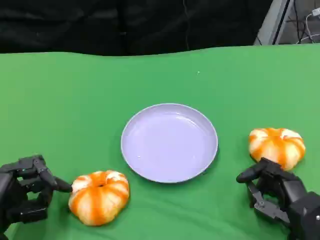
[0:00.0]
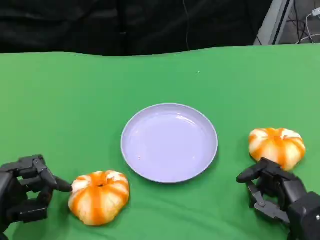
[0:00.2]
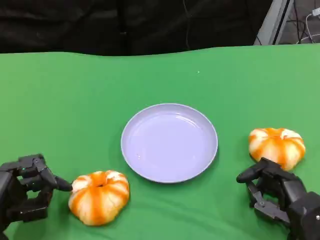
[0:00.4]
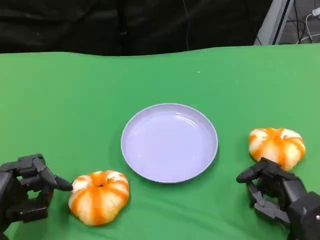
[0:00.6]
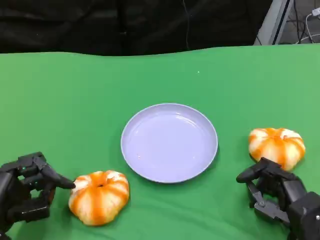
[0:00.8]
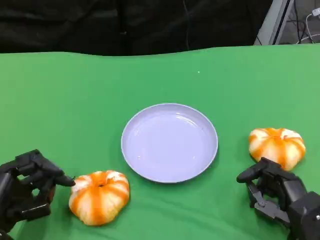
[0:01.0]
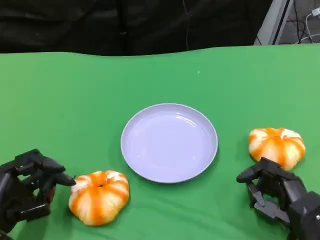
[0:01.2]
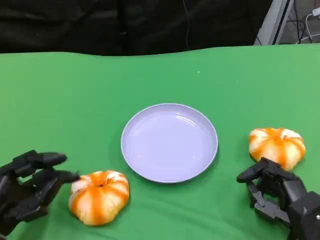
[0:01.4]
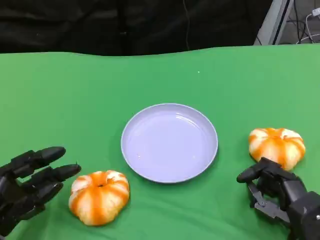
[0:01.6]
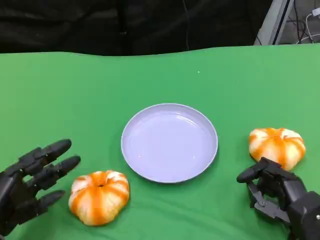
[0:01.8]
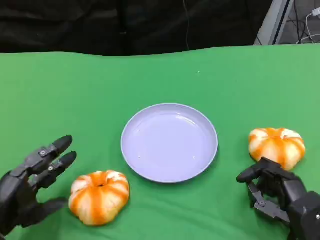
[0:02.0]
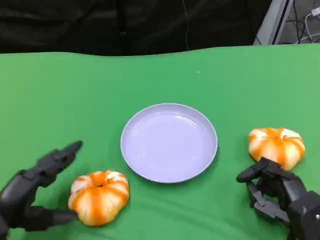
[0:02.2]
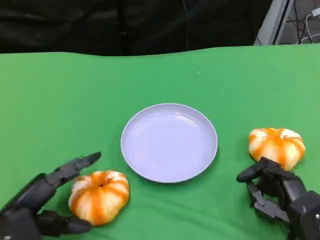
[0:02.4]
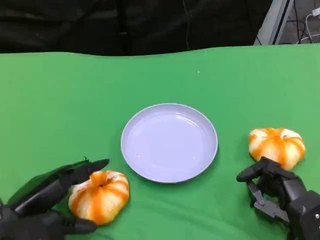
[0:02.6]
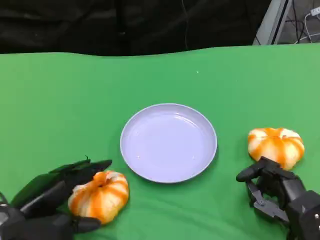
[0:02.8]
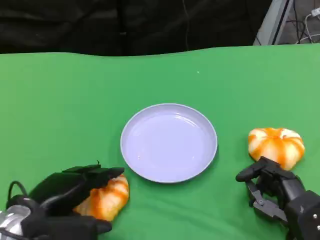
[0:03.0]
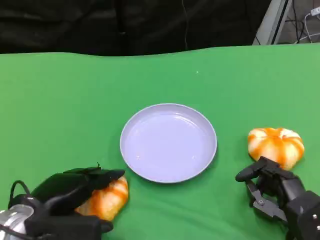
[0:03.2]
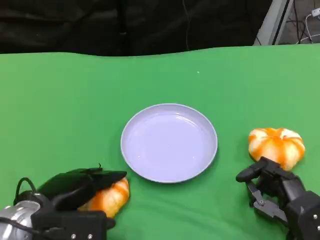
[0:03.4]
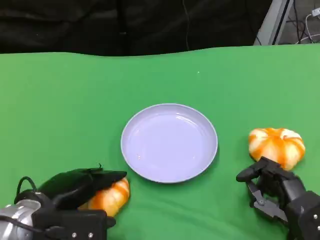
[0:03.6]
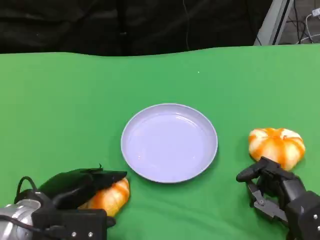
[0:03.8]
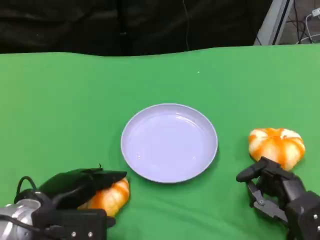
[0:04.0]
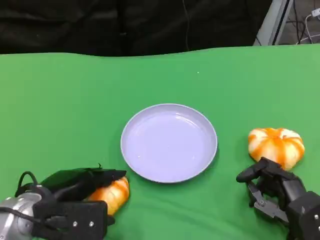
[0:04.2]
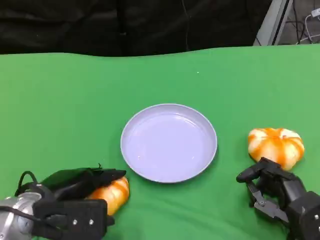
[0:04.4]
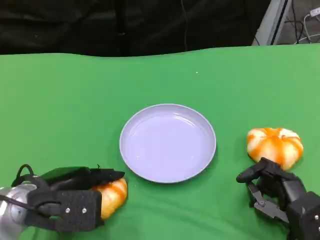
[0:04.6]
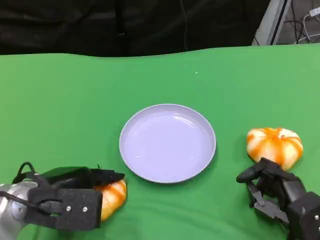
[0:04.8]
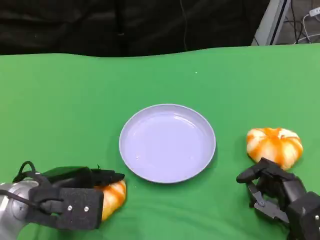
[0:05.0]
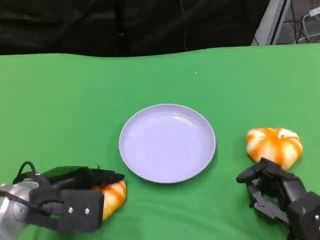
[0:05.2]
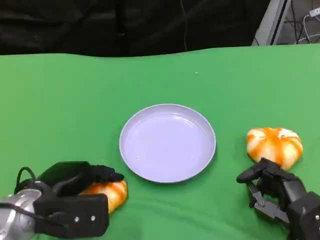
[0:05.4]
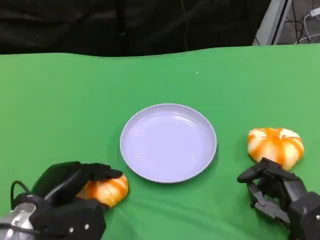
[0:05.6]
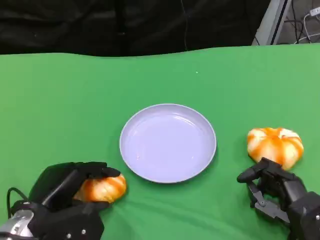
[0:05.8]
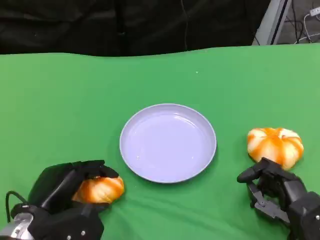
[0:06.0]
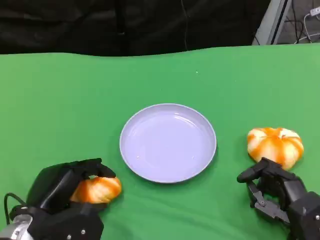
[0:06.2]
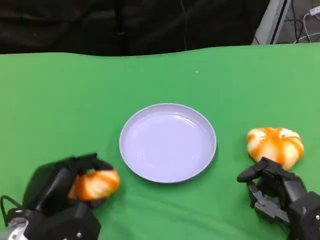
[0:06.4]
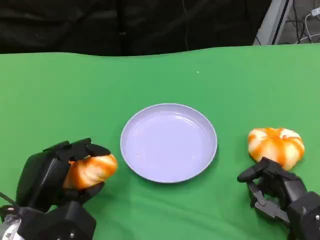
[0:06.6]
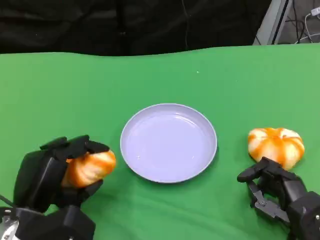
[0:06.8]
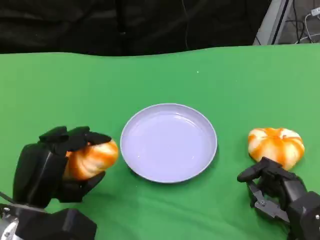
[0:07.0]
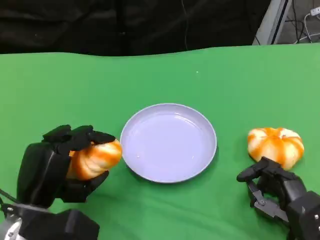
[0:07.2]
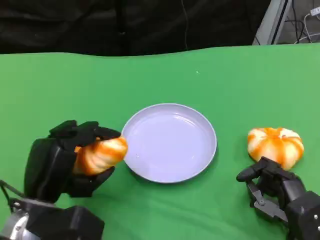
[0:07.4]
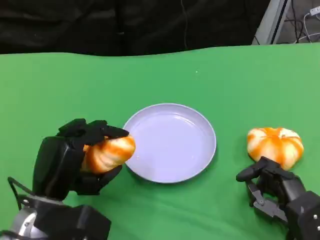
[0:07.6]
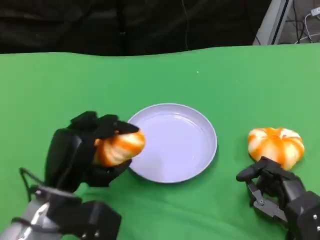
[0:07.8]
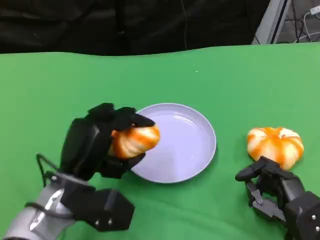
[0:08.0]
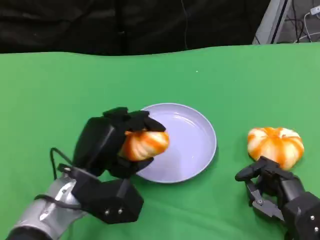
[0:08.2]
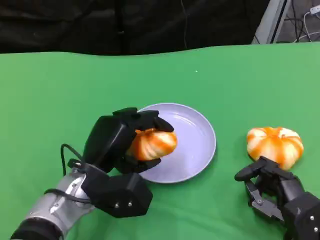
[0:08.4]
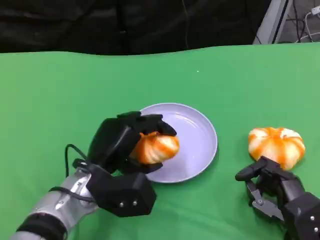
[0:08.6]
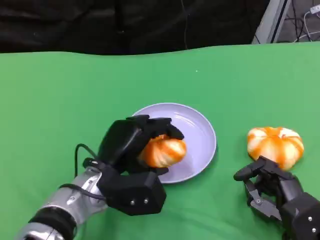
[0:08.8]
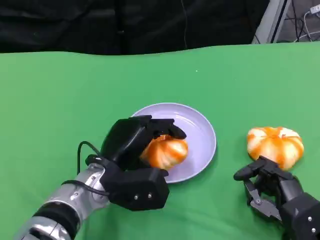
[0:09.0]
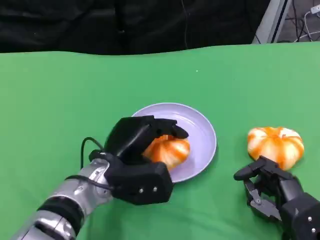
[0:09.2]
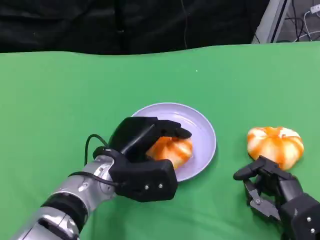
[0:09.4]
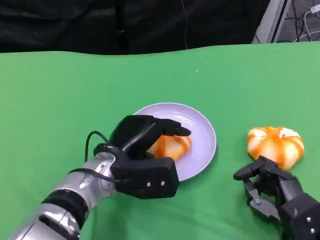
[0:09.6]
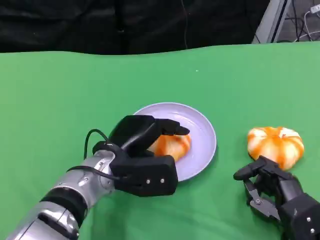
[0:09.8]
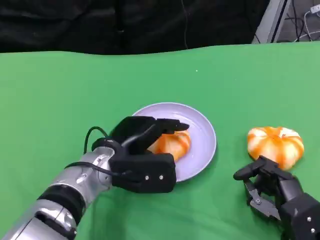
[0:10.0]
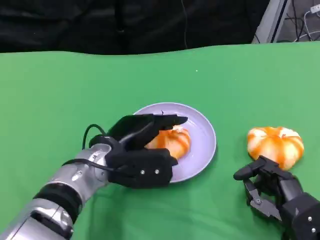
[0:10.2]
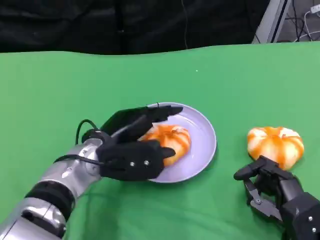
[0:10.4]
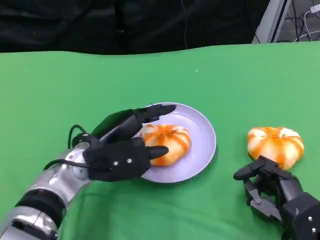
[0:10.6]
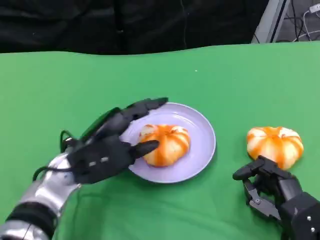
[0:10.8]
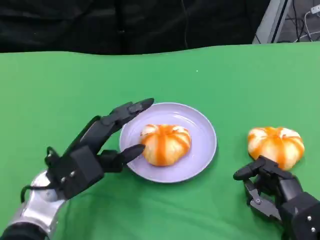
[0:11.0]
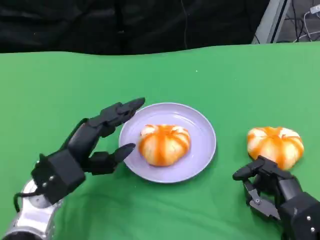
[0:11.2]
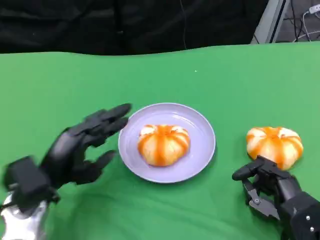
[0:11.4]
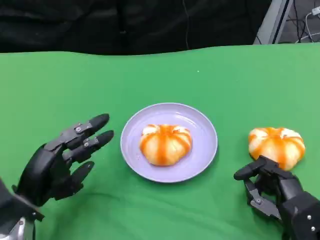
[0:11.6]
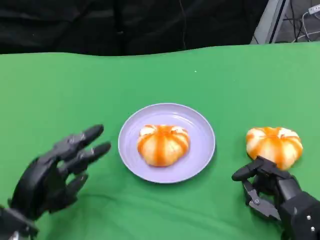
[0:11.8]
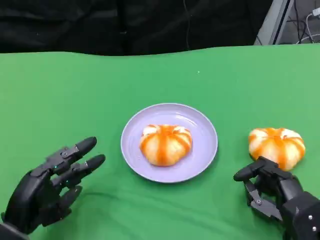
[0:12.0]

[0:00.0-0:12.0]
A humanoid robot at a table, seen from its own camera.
Task of the whole recording: Grasp the bread from the table and place it into the plate.
0:00.0 to 0:01.6: The hands move only a little.
0:01.6 to 0:03.0: The left hand heads to the right and upward, covering roughly 10 cm.
0:03.0 to 0:04.4: The hands move only a little.
0:07.6 to 0:09.0: The left hand goes approximately 10 cm to the right and forward.
0:09.0 to 0:10.4: The hands move only a little.
0:10.4 to 0:12.0: The left hand travels to the left, backward and downward by some 20 cm.

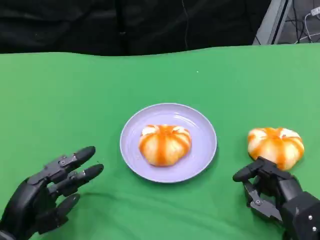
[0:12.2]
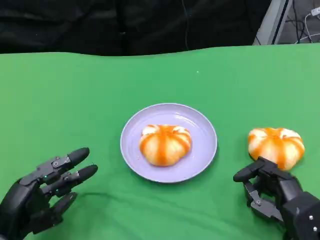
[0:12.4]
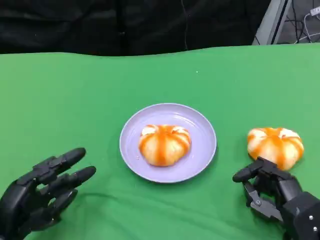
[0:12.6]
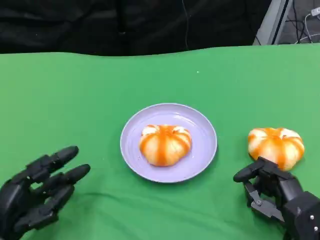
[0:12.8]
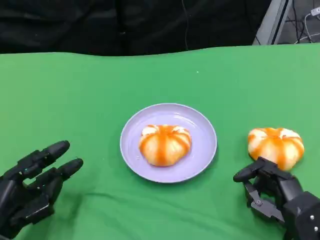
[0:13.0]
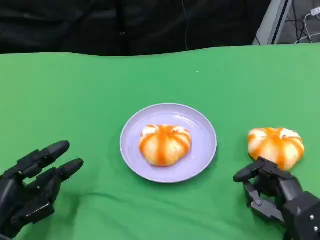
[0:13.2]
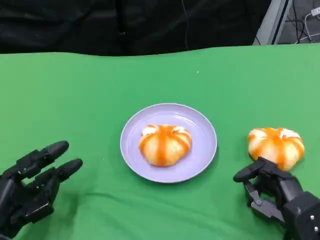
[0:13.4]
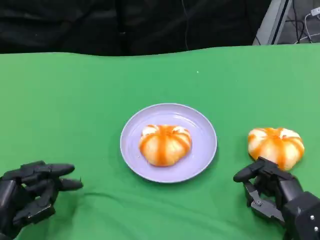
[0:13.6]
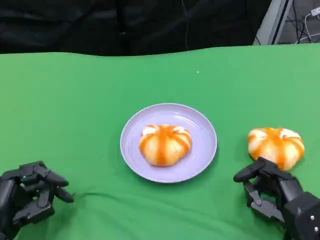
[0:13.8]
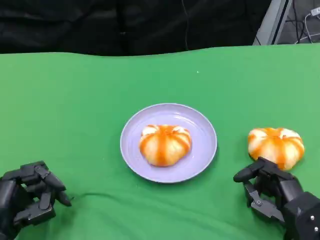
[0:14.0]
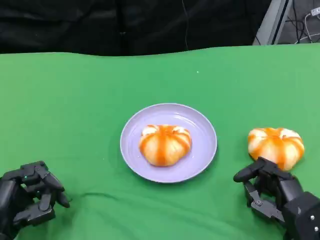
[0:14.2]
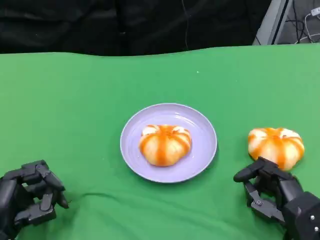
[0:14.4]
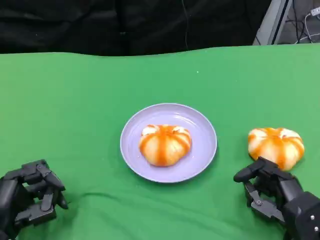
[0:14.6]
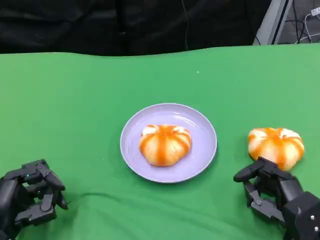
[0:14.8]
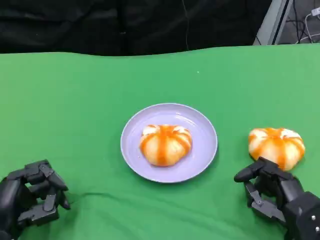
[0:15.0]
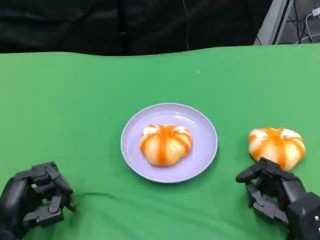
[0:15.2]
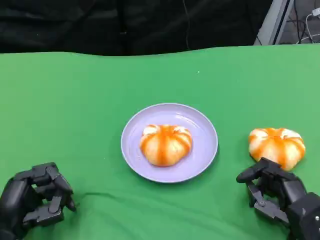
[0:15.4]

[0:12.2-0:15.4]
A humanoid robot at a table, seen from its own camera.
Task of the whole recording: Grasp the bread from the table and place it into the plate.
0:12.2 to 0:13.8: The hands make only small movements.
0:13.8 to 0:15.4: The two hands keep their place.

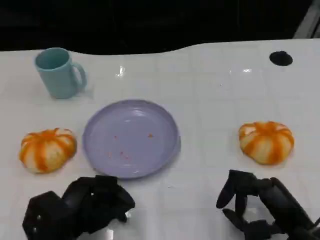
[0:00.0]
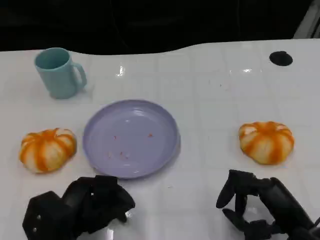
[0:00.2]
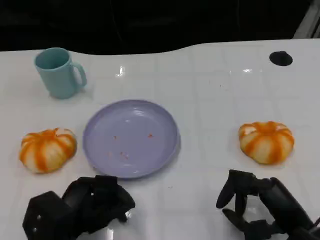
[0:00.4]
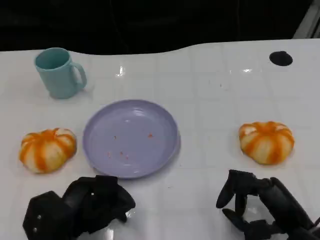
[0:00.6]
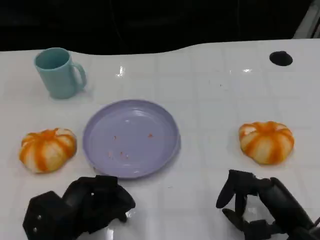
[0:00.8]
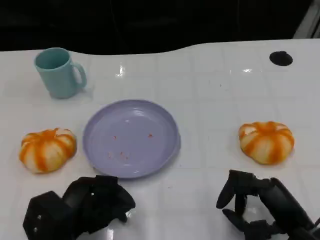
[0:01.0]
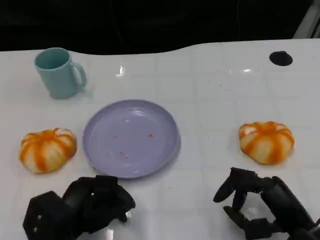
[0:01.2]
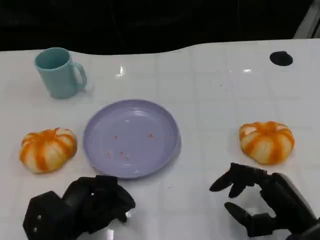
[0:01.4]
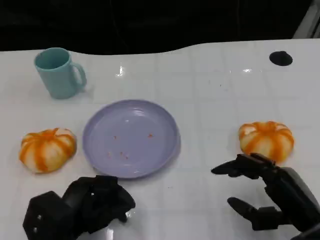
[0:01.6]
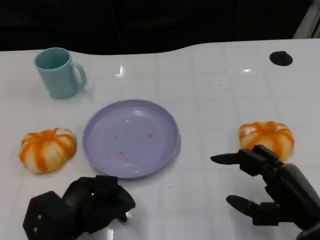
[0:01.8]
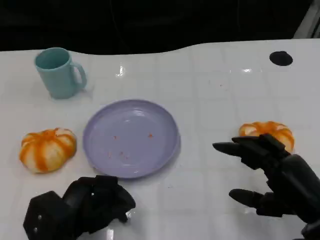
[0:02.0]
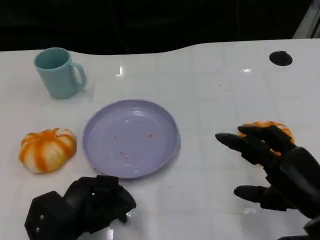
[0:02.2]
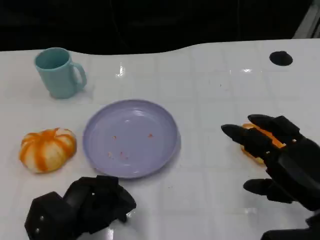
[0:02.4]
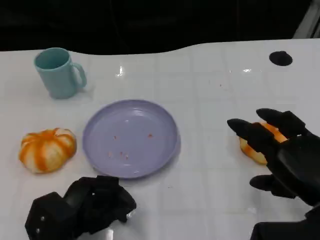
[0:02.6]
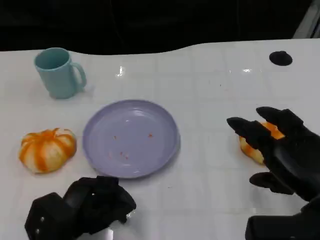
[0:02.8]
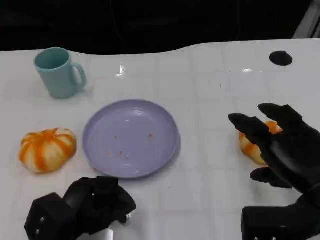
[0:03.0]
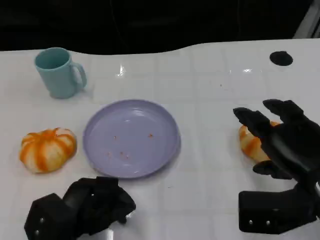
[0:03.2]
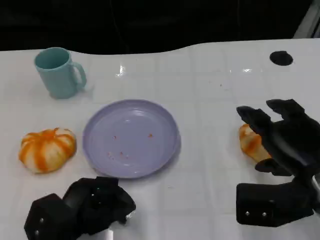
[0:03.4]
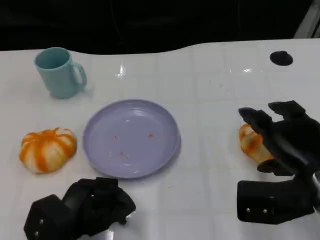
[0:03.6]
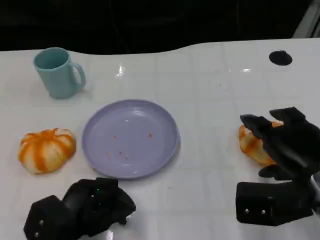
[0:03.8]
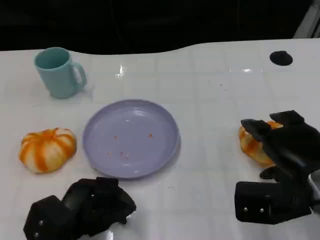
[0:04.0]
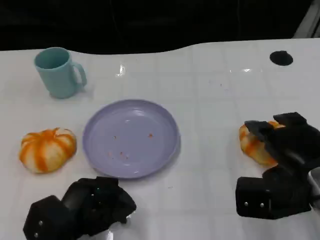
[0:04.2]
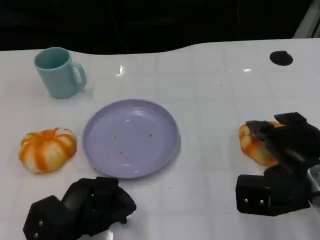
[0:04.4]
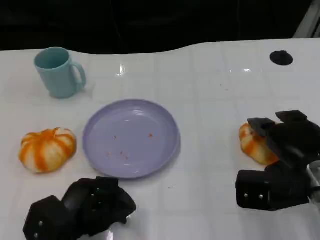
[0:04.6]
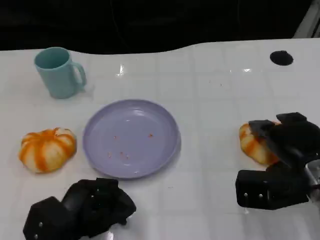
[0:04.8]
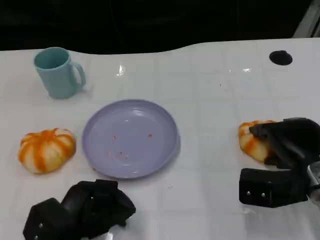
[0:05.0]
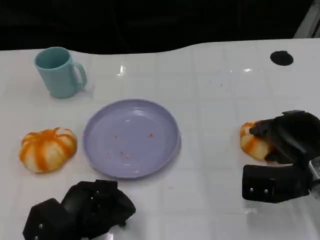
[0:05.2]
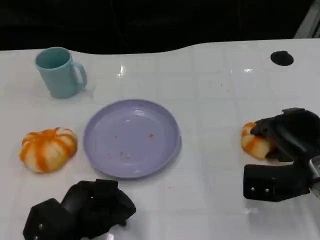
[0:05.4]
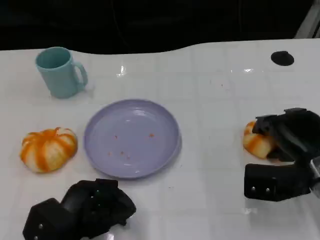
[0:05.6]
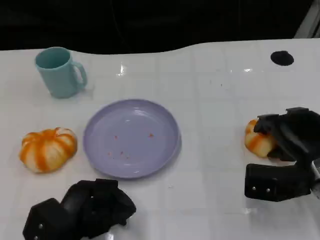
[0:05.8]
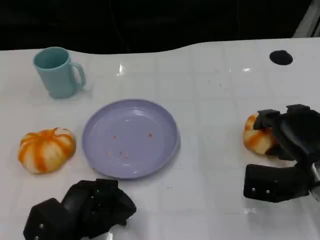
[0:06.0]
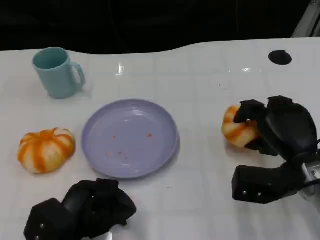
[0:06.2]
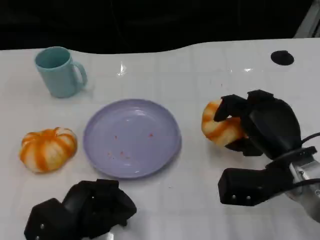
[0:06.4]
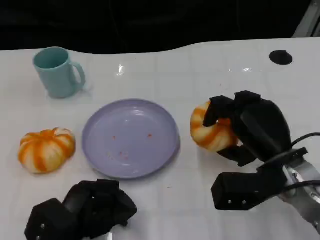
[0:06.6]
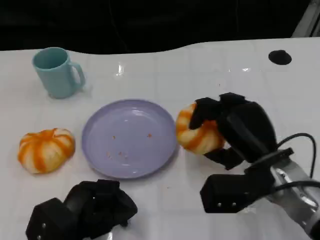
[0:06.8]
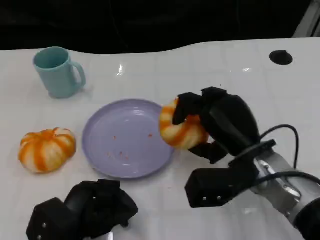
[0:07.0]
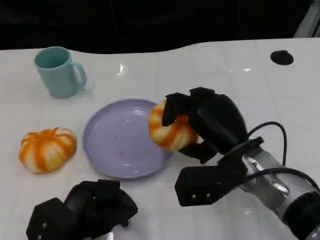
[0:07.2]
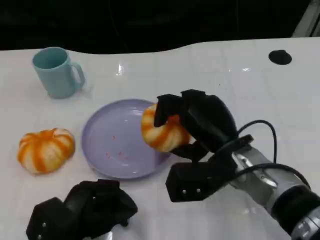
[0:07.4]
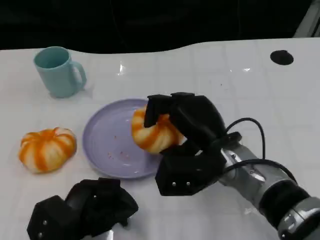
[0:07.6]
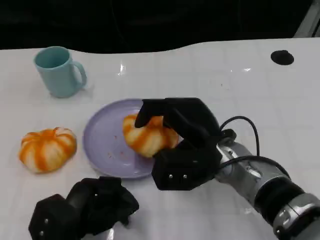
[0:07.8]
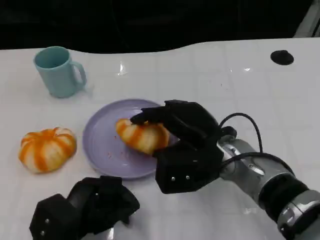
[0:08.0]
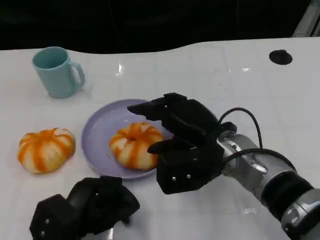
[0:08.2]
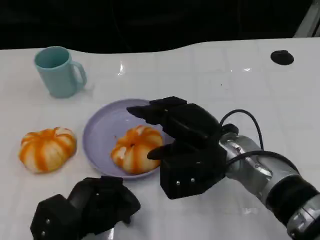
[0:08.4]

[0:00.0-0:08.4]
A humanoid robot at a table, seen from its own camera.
Task of the whole recording: Grasp the bread from the table and place it into the plate.
0:00.0 to 0:01.4: The hands stay close to where they were, moving slightly.
0:01.4 to 0:02.8: The right hand travels upward by approximately 5 cm.
0:02.8 to 0:04.2: The right hand ends up approximately 5 cm from where it was.
0:04.2 to 0:05.6: The right hand ends up approximately 5 cm from where it was.
0:05.6 to 0:07.0: The right hand goes approximately 10 cm to the left.
